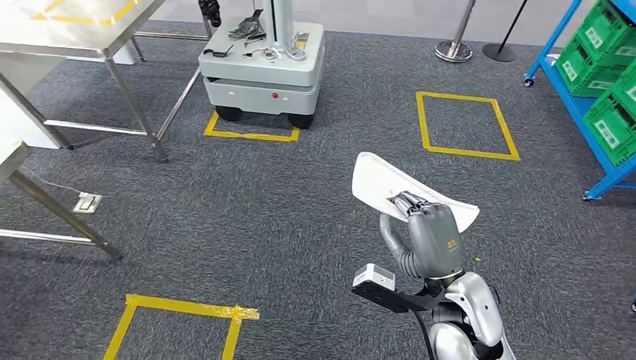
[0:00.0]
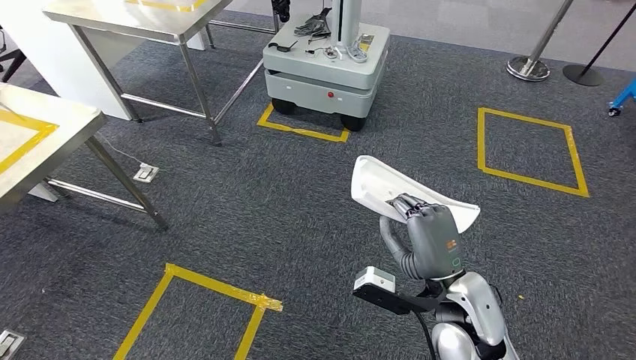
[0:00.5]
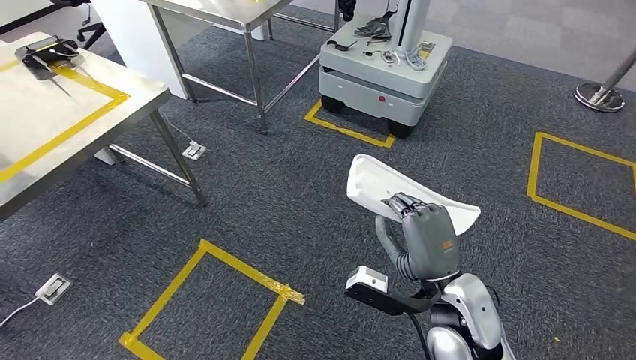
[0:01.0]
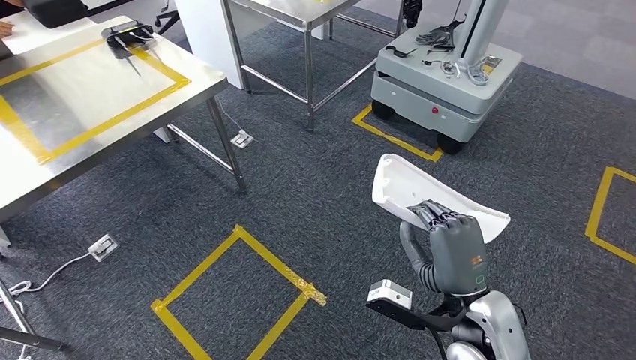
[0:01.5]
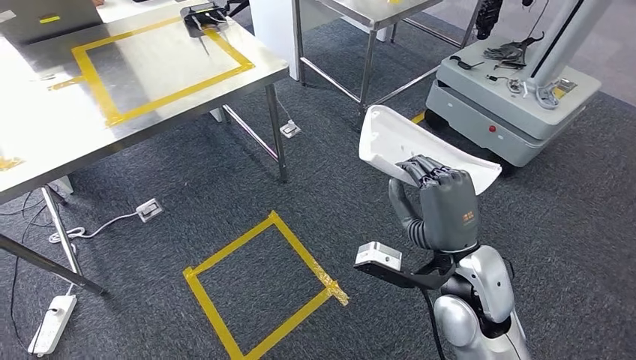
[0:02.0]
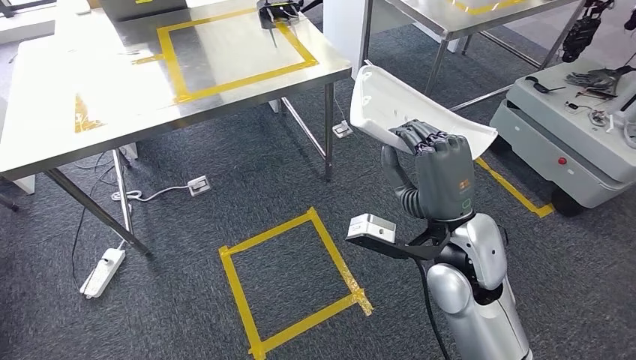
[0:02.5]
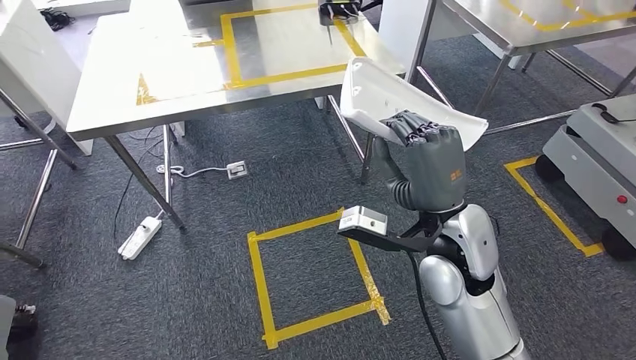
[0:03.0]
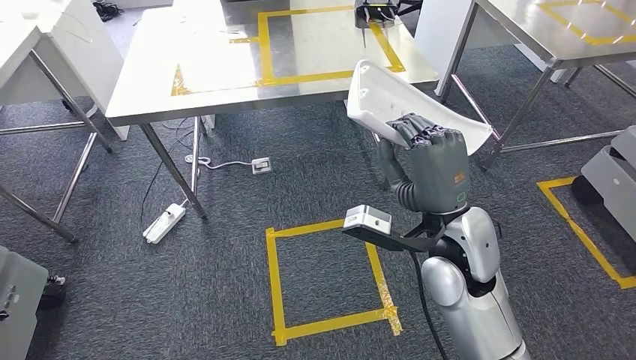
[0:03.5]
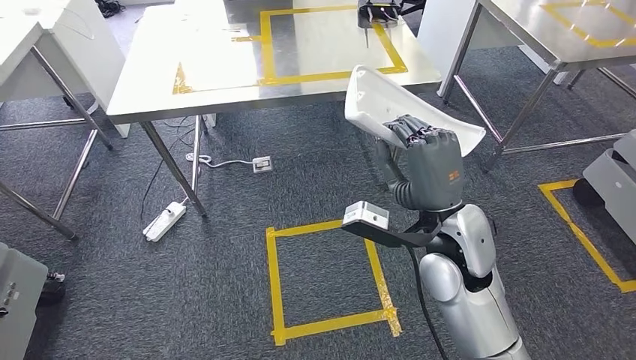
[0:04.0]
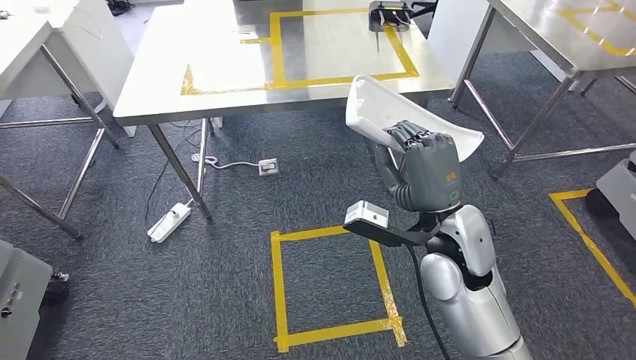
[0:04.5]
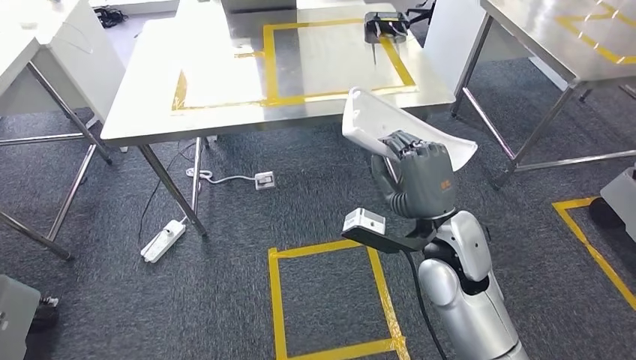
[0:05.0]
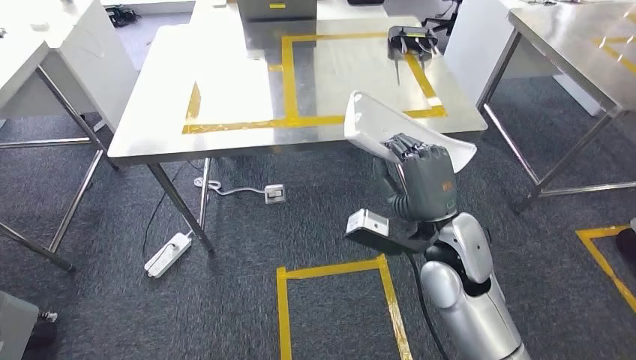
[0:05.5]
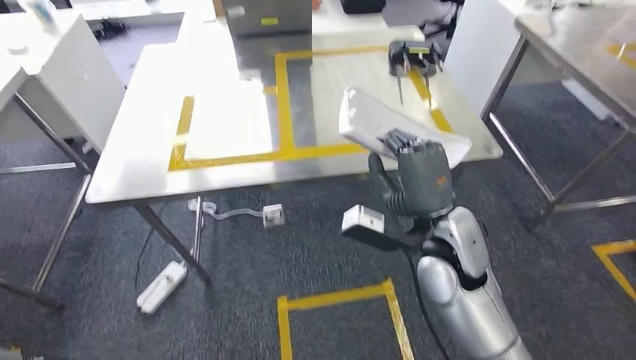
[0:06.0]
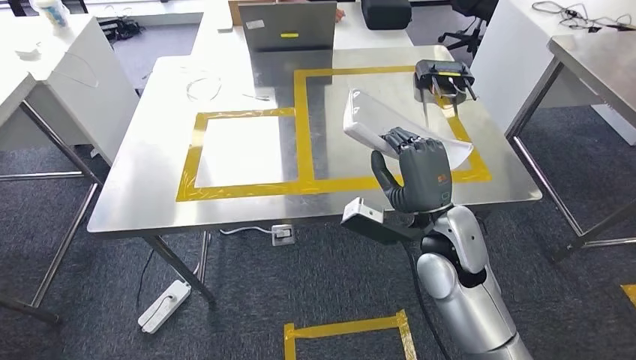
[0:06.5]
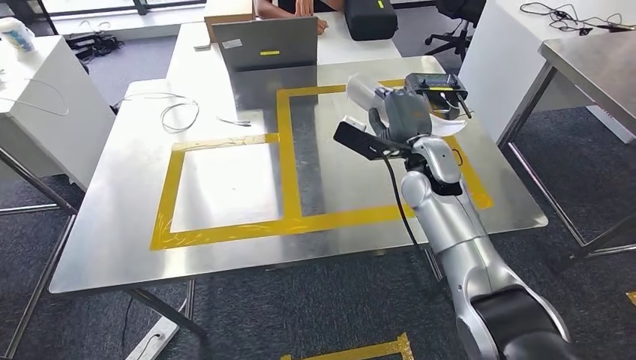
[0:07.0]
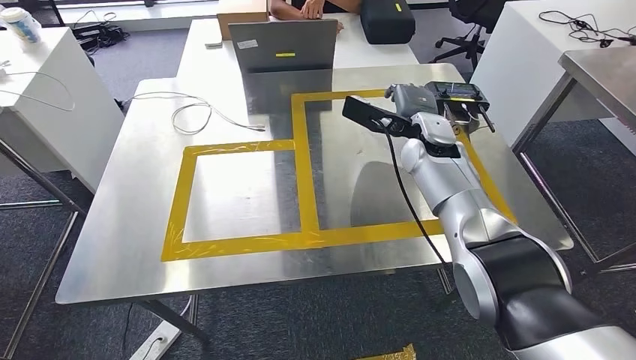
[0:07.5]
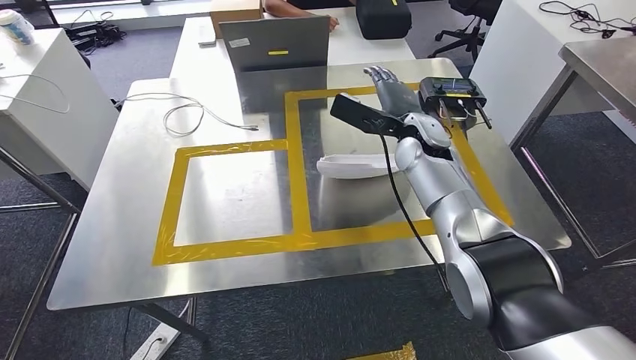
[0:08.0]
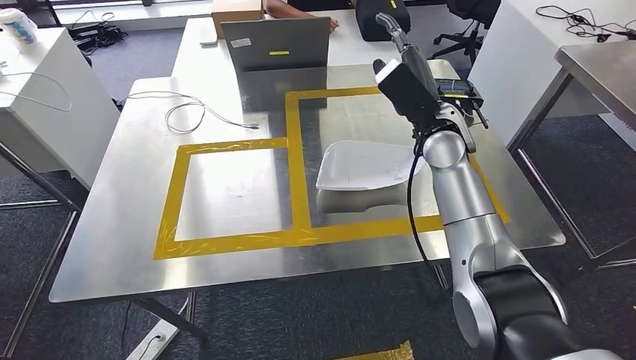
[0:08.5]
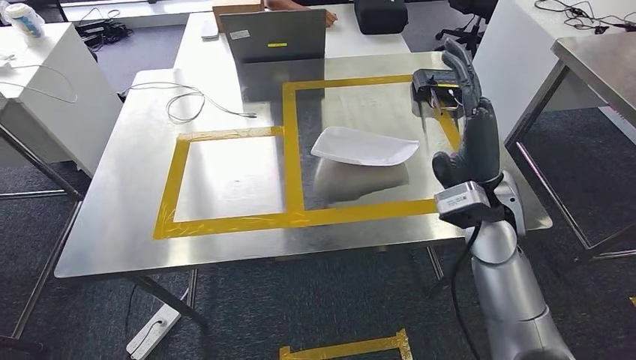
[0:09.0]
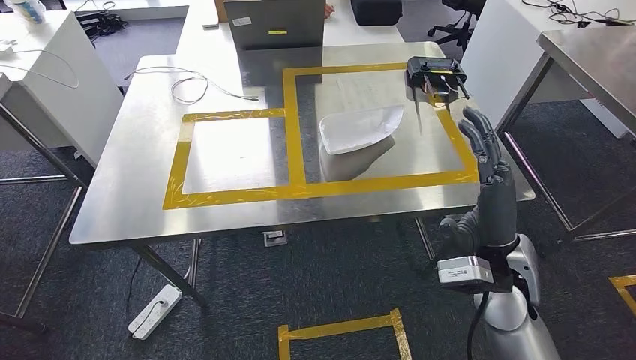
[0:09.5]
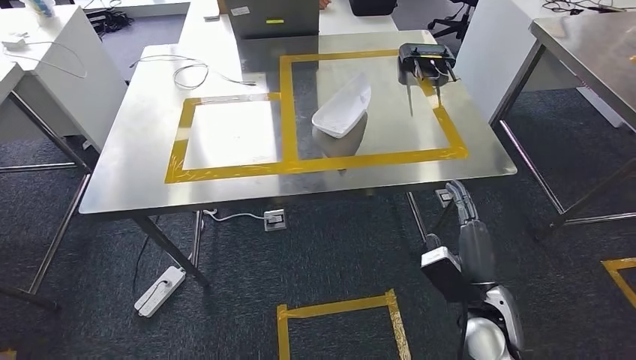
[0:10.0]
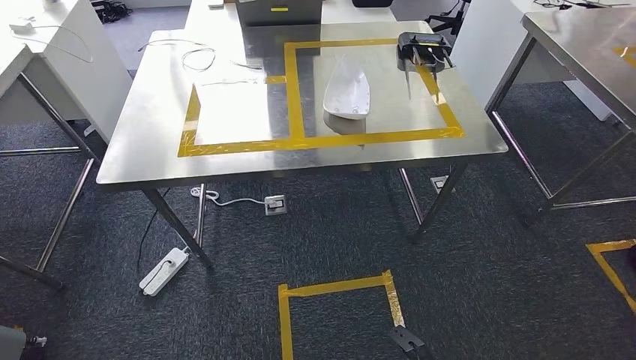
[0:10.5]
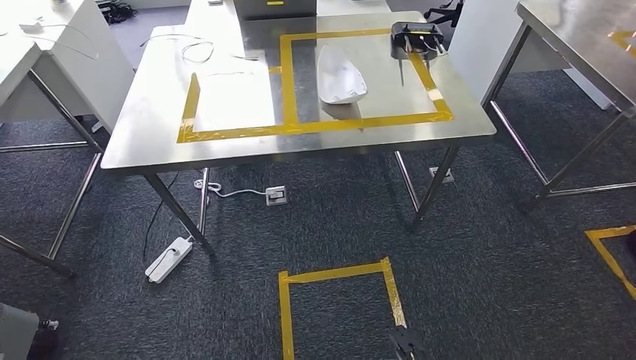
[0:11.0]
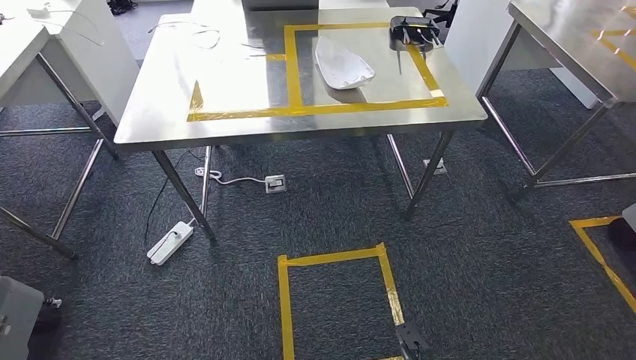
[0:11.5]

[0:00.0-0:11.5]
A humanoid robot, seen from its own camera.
Step, 0:00.0 to 0:06.0: Move the small parts to the workbench.
Step, 0:06.5 to 0:09.5: Insert the small parts into the corresponding holes on the workbench.

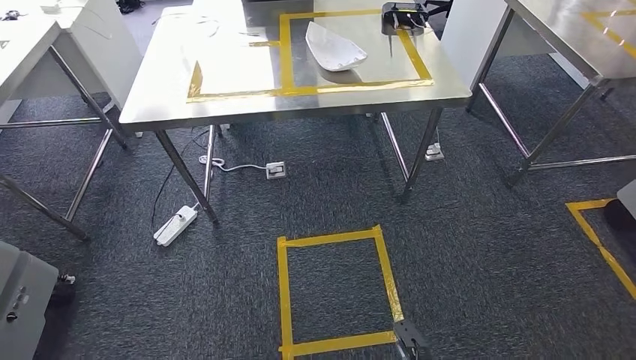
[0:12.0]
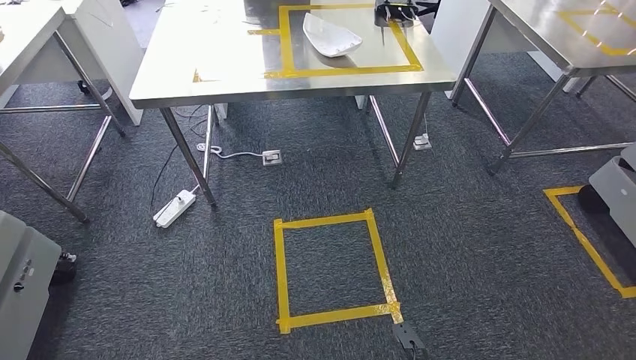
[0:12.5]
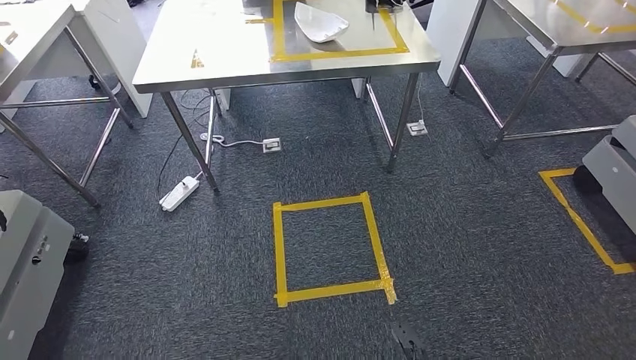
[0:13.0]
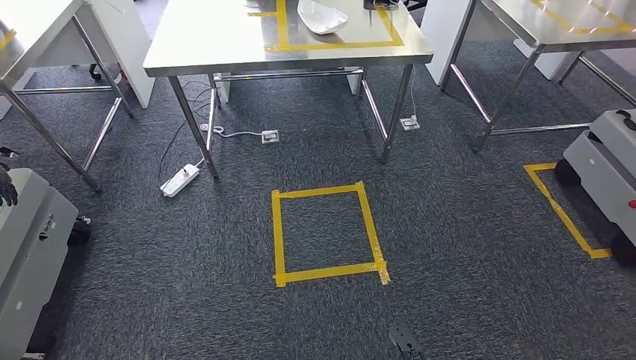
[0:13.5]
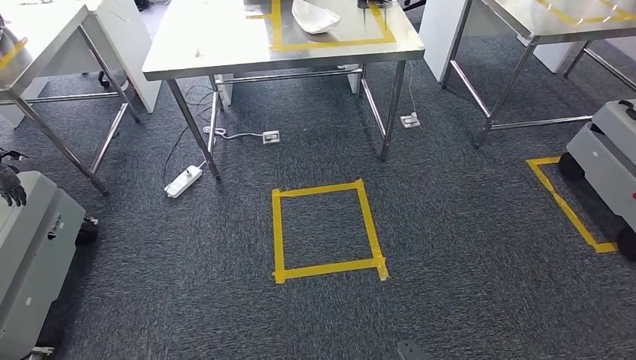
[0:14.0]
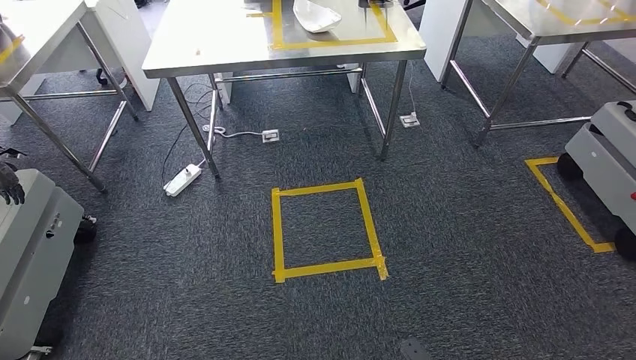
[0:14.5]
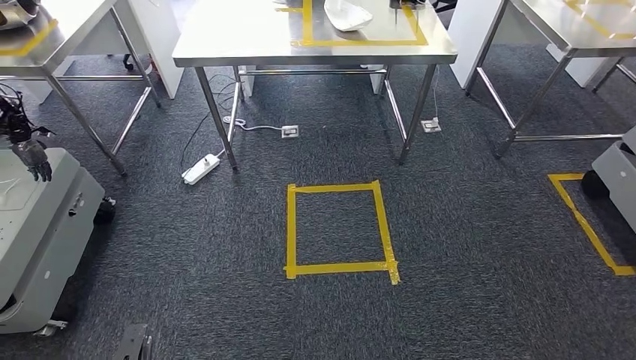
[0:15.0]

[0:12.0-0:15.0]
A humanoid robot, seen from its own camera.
Step, 0:12.0 to 0:15.0: Move to the initial position at the workbench.
